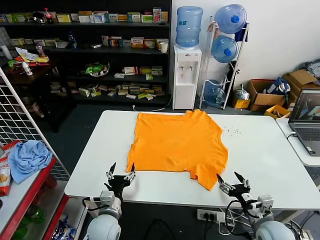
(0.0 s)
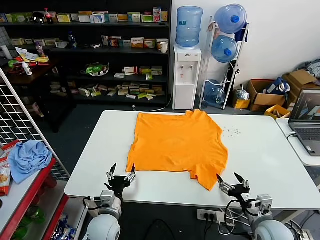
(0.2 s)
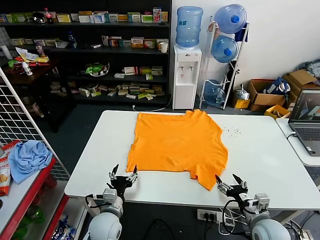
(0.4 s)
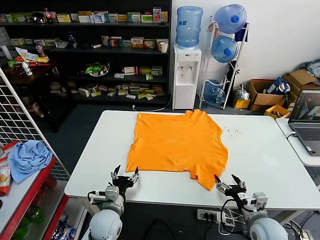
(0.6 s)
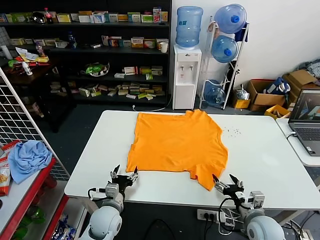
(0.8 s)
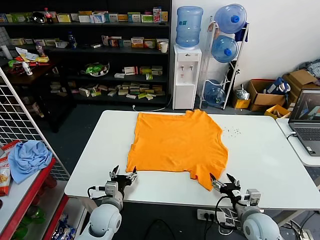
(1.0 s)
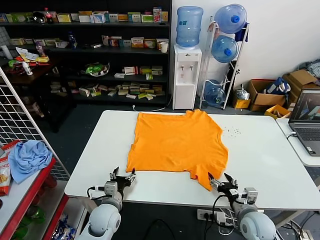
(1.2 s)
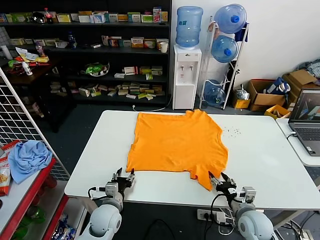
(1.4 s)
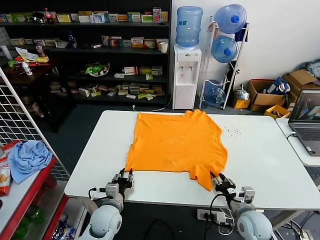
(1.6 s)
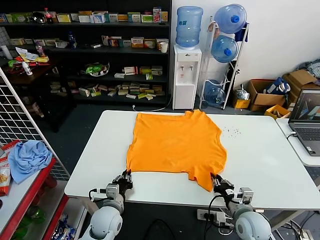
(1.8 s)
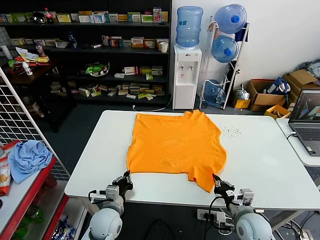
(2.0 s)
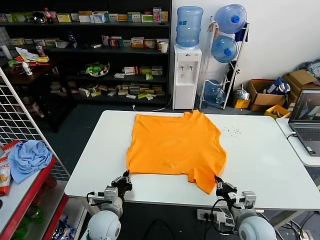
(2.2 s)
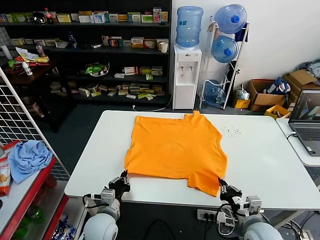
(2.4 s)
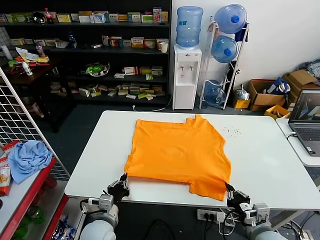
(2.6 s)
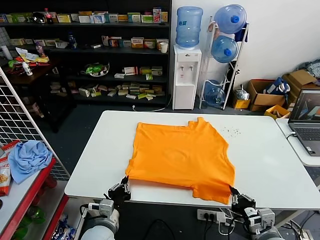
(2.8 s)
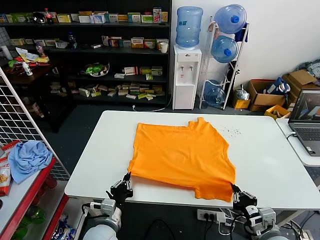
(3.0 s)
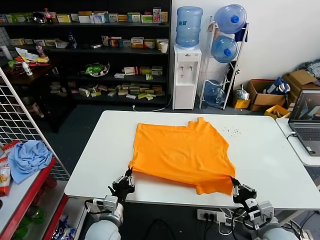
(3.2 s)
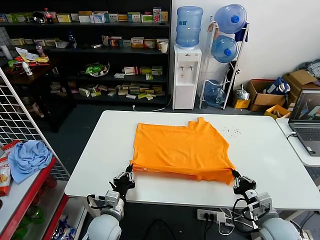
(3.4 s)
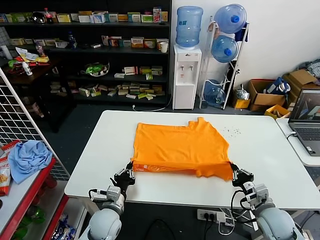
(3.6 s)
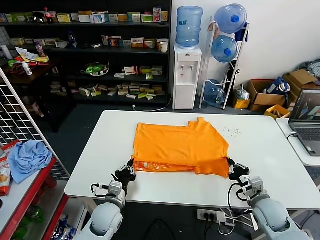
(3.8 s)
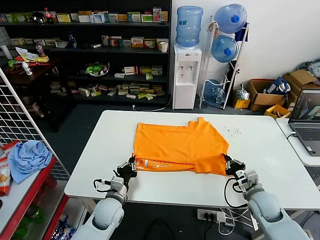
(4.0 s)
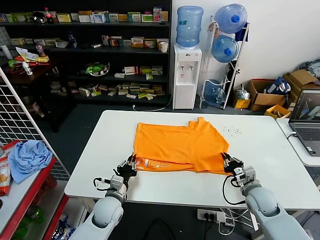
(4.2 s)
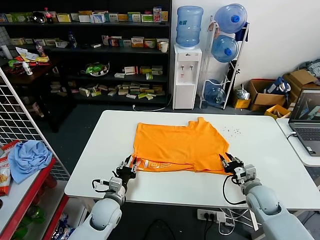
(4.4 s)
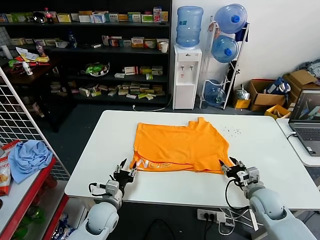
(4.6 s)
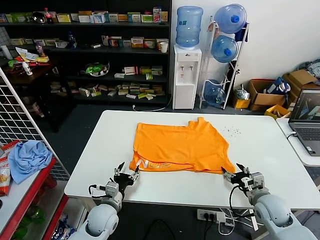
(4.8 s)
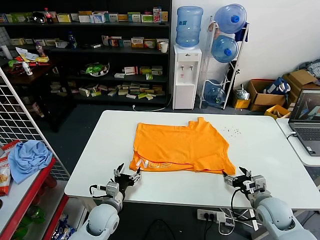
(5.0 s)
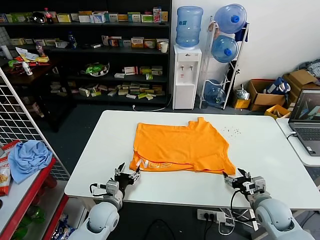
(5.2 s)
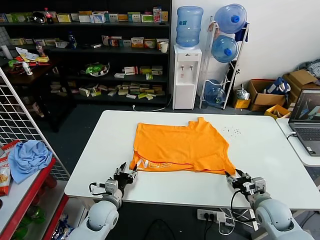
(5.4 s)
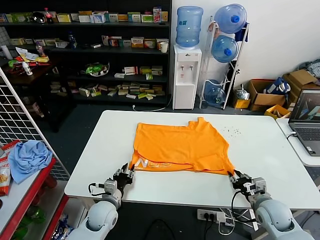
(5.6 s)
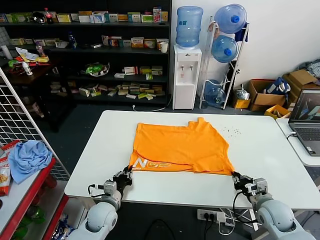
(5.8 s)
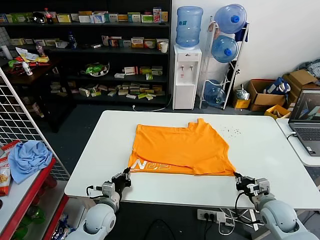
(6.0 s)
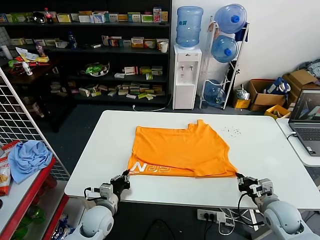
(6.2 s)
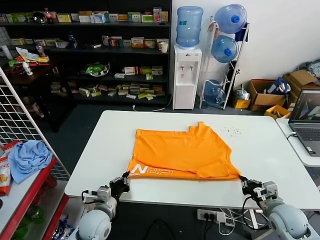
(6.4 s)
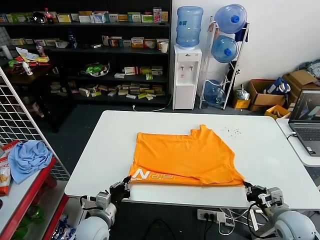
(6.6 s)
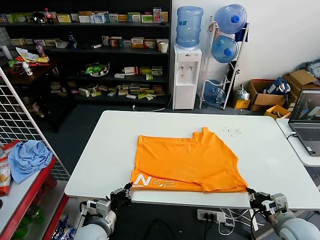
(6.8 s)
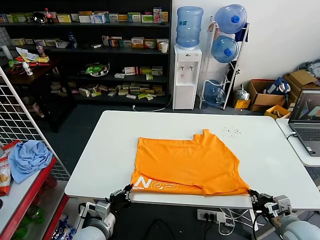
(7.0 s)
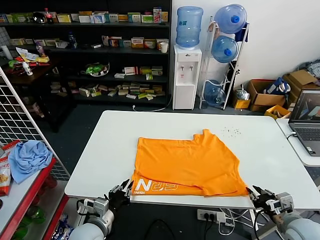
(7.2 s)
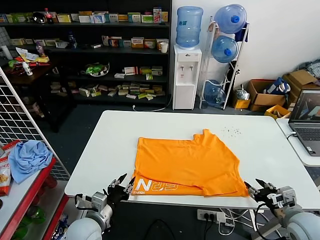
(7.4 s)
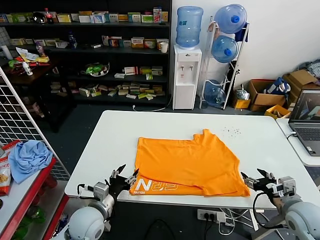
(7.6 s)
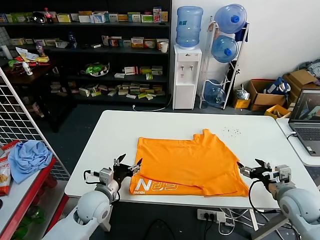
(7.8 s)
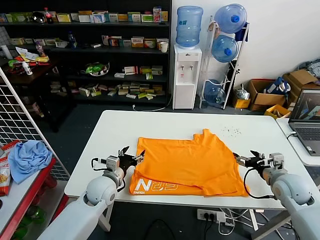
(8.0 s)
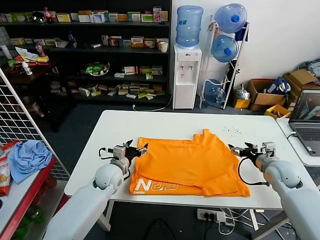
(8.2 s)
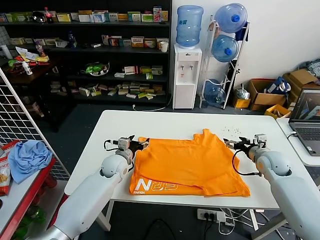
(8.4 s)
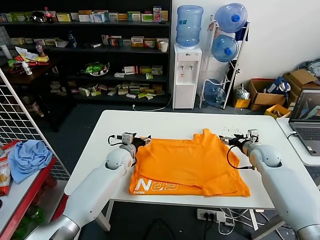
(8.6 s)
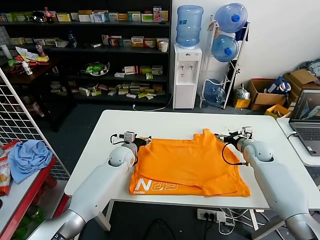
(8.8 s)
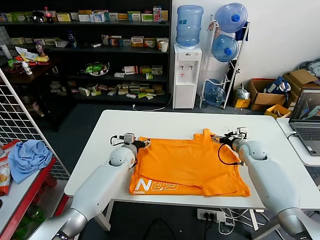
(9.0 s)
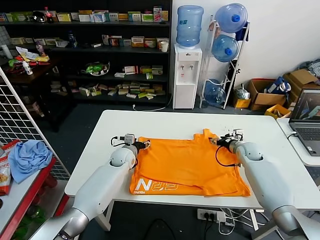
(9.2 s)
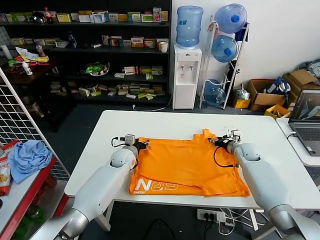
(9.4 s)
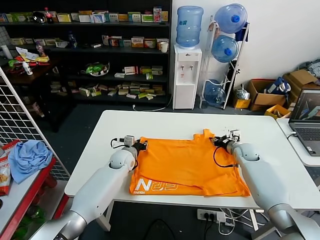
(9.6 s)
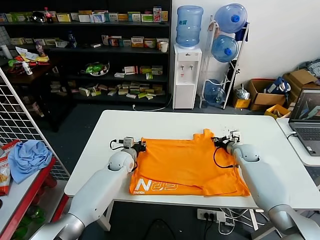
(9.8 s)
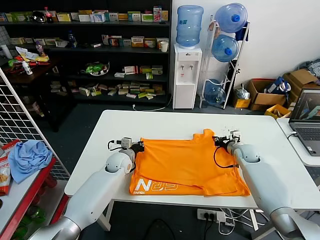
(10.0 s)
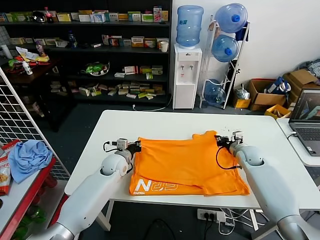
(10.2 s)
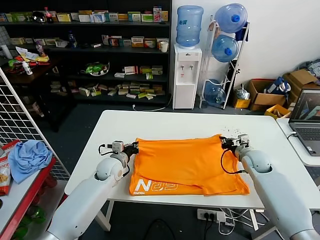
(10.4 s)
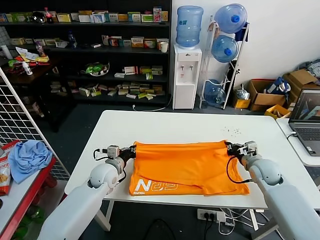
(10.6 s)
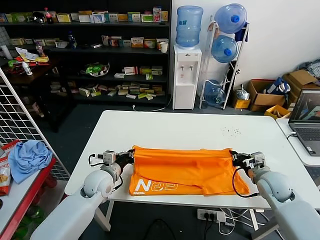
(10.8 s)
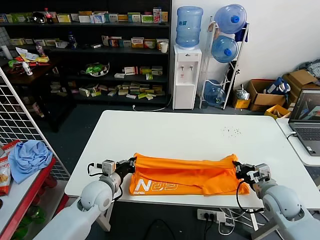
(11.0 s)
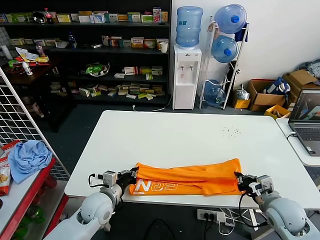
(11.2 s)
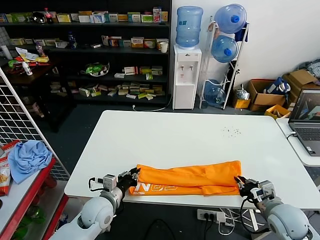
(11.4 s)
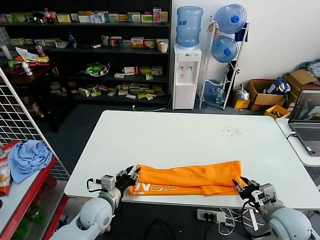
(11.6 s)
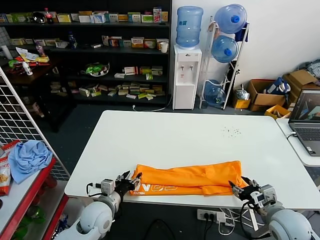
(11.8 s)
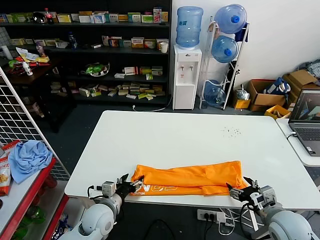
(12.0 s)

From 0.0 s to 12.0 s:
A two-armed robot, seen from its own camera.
Task of the whole recording: fold and organize the clothes.
Step, from 0.0 s to 2.2 s: use both grippers simultaneously to clamp the lower edge of the clothing fabric.
Step, from 2.4 s to 4.4 s: use both grippers to drag the lower edge of the fabric forward and fold it over the upper edge.
Step, from 4.6 s to 7.2 s: Drag the clothes downward with both gripper.
Step, from 7.4 s to 10.0 s: use both grippers simultaneously to clamp the upper edge of the clothing fabric.
Step, from 10.2 s to 11.6 s: use both grippers to drag the upper edge of the fabric backward and fold it over the lower edge.
From 1.6 s to 3.0 s: Both grippers travel together backward, some 10 cm. The left gripper closes, while the right gripper closes its fingers.
From 3.0 s to 4.4 s: The right gripper heads forward, covering about 15 cm, and opens its fingers, while the left gripper travels forward by about 10 cm, and opens its fingers.
From 4.4 s to 6.0 s: The right gripper changes place by some 5 cm, and closes; the left gripper opens, then closes once more.
From 6.0 s to 7.6 s: The right gripper is displaced upward by some 10 cm, and opens its fingers; the left gripper travels upward and backward by some 10 cm, and opens up.
From 7.6 s to 9.0 s: The grippers both shift forward by approximately 25 cm.
From 9.0 s to 10.4 s: Both grippers travel together backward, approximately 5 cm. The right gripper closes; the left gripper closes its fingers.
From 10.4 s to 12.0 s: The grippers both shift backward by approximately 20 cm. The left gripper opens. Meanwhile the right gripper opens up.

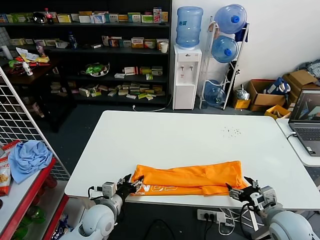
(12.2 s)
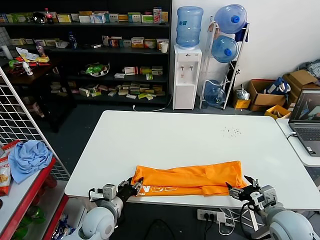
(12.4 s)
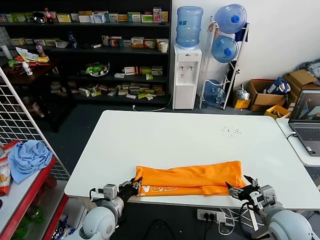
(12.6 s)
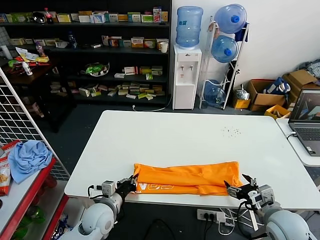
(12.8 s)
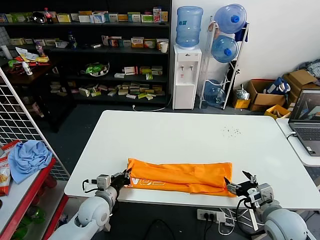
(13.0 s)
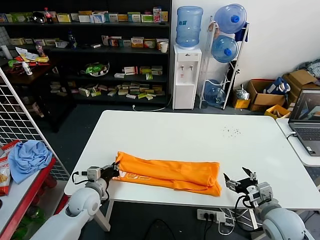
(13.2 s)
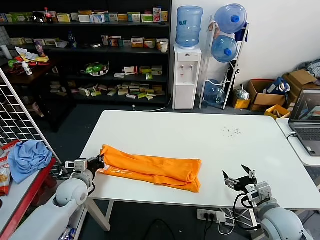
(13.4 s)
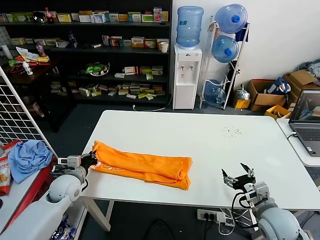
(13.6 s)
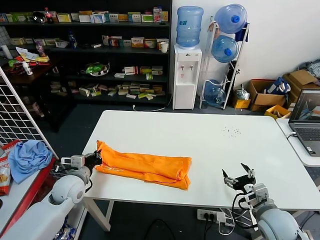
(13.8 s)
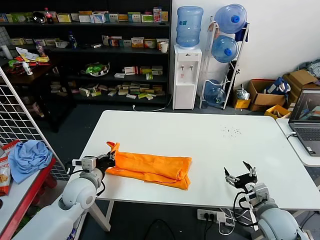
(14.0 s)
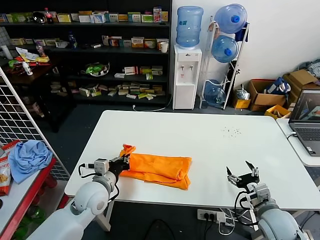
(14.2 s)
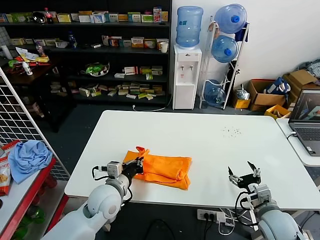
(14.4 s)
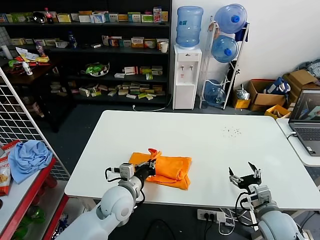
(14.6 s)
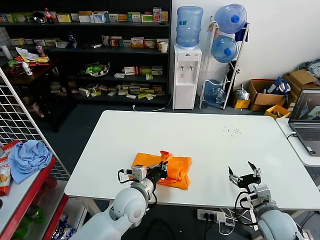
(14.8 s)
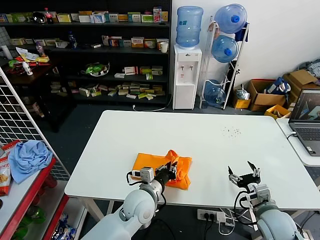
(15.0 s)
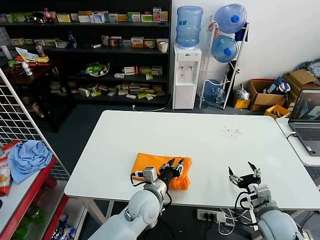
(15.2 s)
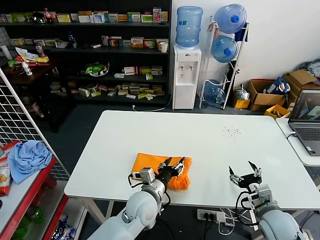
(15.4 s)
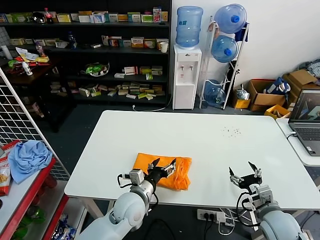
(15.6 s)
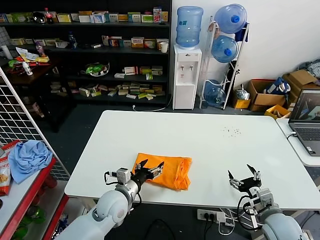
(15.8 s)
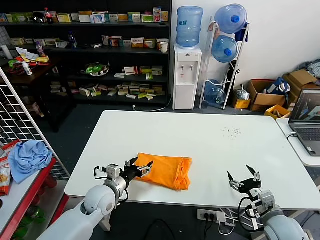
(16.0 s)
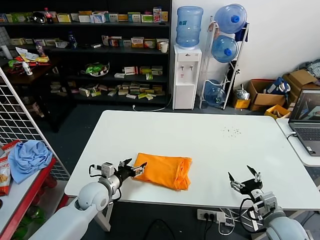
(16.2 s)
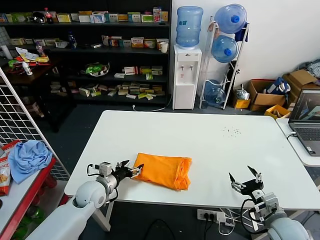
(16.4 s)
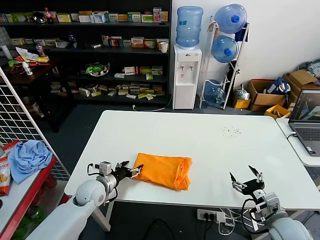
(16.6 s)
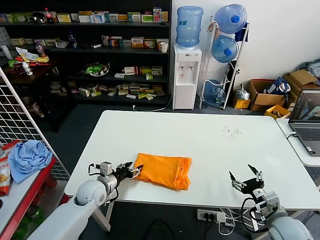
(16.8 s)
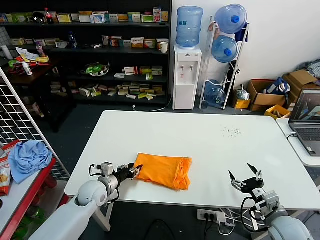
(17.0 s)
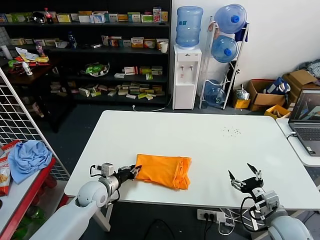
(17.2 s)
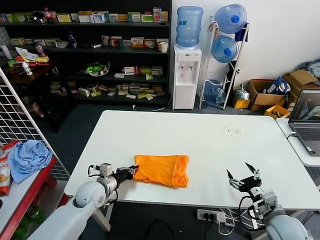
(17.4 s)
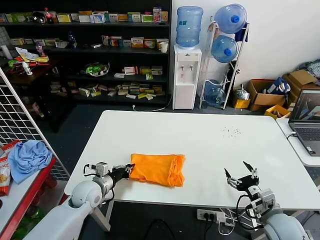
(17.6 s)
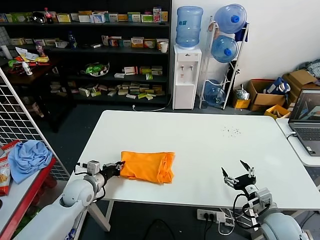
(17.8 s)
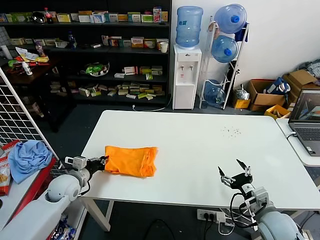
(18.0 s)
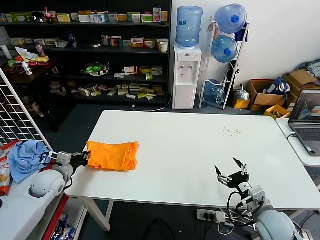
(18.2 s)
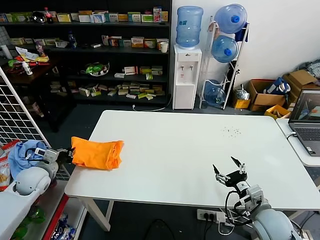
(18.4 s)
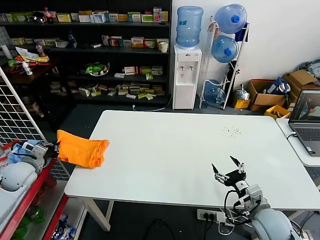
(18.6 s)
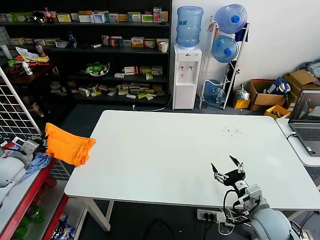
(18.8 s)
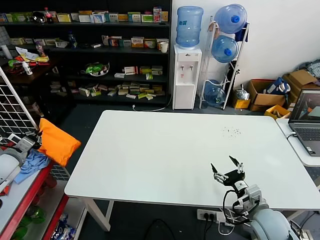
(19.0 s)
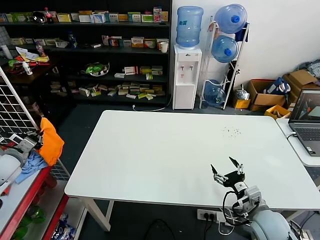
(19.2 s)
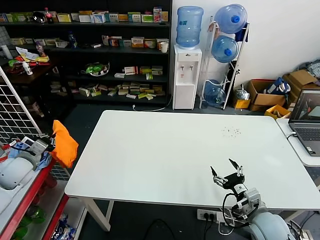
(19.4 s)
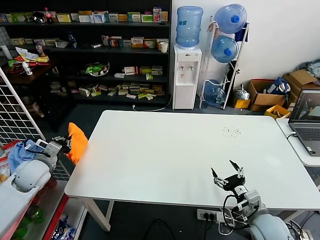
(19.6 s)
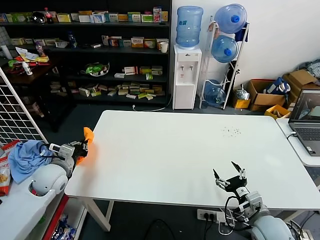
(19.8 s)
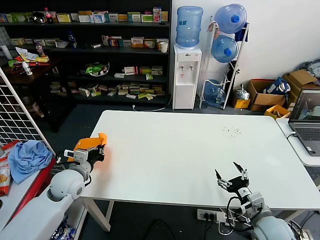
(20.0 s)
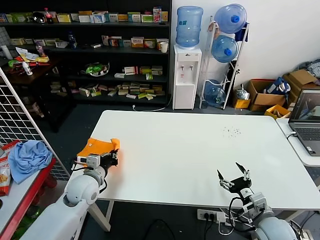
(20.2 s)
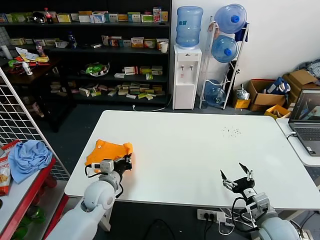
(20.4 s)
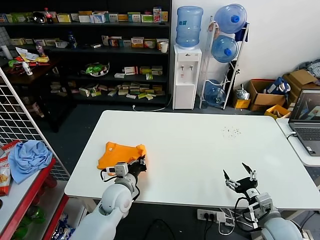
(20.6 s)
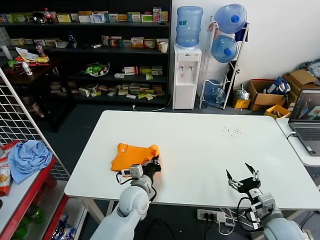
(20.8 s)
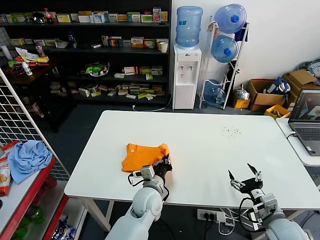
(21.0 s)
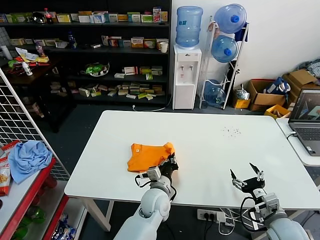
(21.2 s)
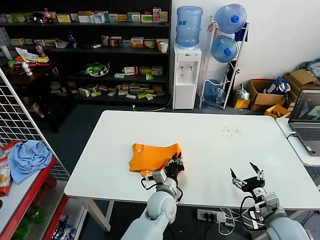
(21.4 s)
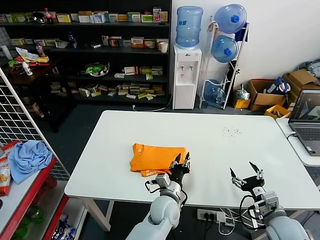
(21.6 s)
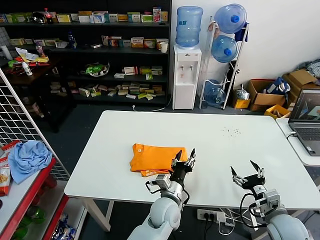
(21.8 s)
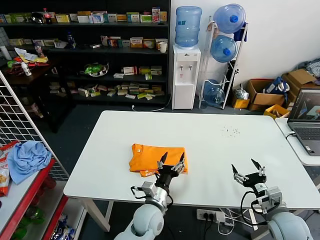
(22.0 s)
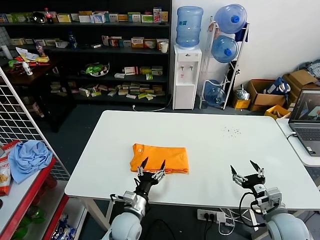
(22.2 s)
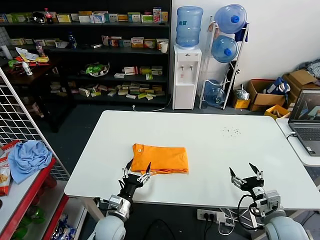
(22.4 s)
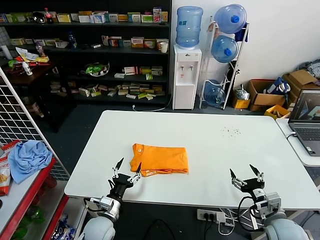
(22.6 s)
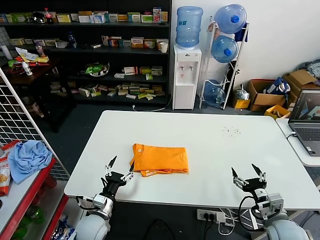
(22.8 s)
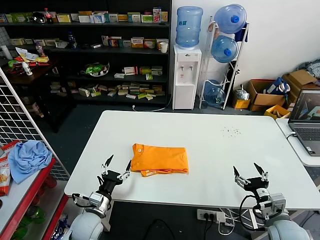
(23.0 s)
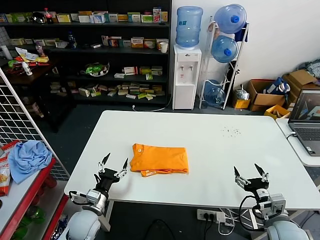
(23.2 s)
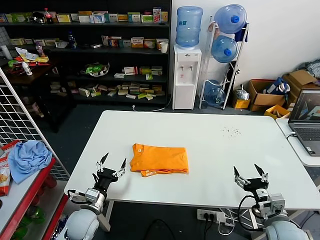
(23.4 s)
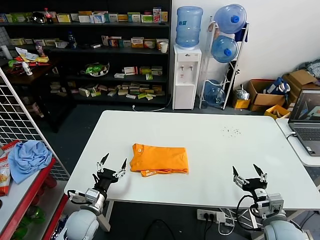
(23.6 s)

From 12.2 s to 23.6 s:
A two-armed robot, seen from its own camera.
Task of the whole recording: fold and organize the clothes.
Step, from 12.2 s to 12.8 s: use the left gripper to clamp the left edge of the fabric.
Step, from 13.2 s to 15.2 s: use the left gripper to drag the left edge of the fabric to the left and folds it over the right edge.
Step, from 15.4 s to 21.6 s: Flip the folded clothes over with left gripper.
From 12.2 s to 13.6 s: The left gripper travels to the left and forward by some 15 cm, and closes.
From 13.6 s to 15.0 s: The left gripper travels to the right by approximately 25 cm.
From 15.0 s to 16.4 s: The left gripper heads to the left, covering roughly 15 cm, and opens up.
From 16.4 s to 17.8 s: The left gripper closes up.
From 17.8 s to 19.4 s: The left gripper heads to the left and upward, covering about 25 cm.
From 19.4 s to 20.8 s: The left gripper shifts roughly 35 cm to the right.
From 20.8 s to 22.2 s: The left gripper heads downward and backward, covering about 10 cm, moves about 15 cm to the right and comes back, and opens its fingers.
From 22.2 s to 23.6 s: The left gripper goes approximately 15 cm to the left.
